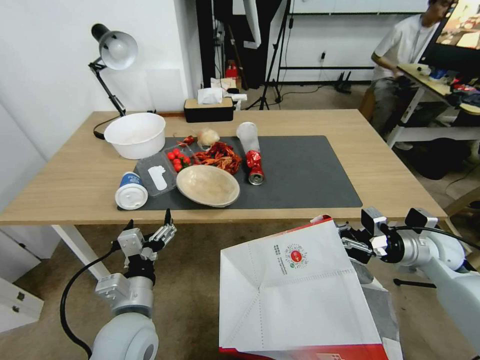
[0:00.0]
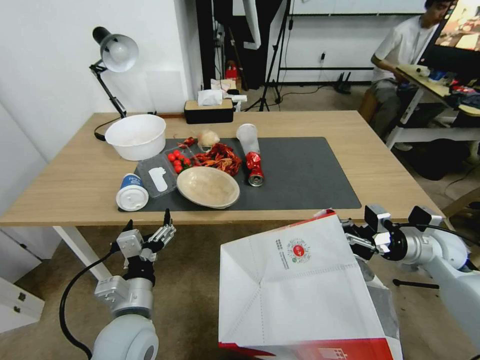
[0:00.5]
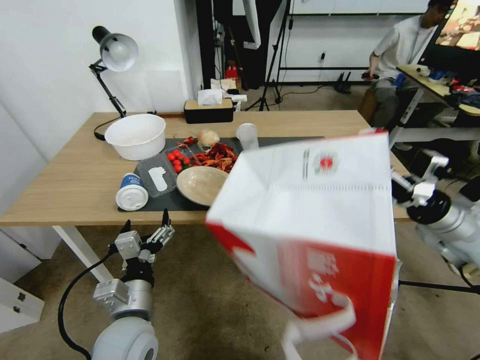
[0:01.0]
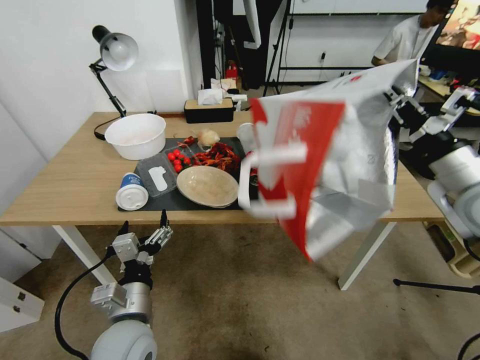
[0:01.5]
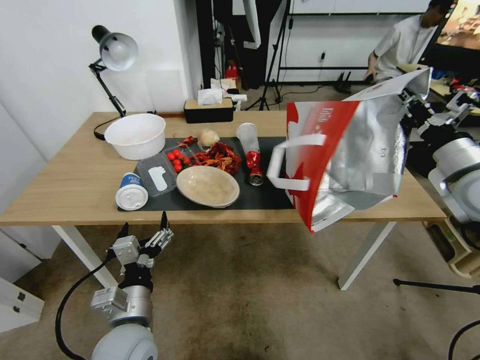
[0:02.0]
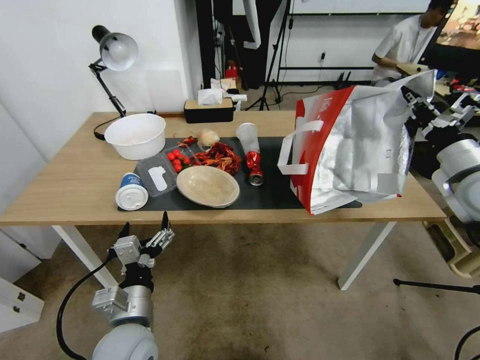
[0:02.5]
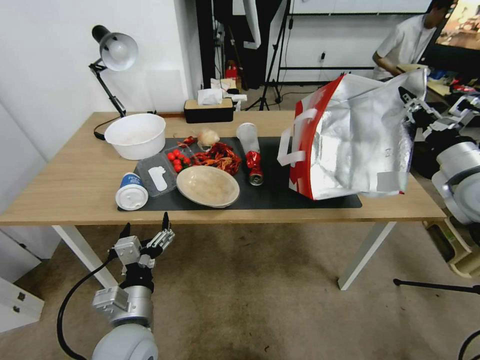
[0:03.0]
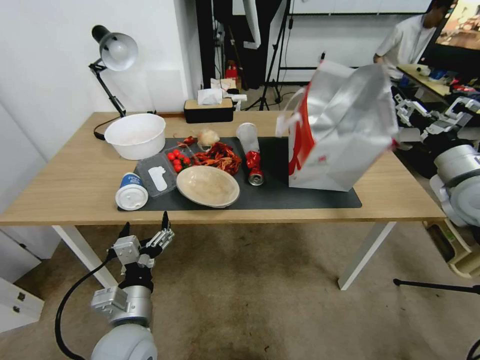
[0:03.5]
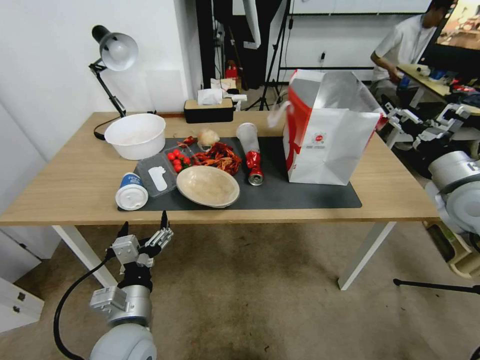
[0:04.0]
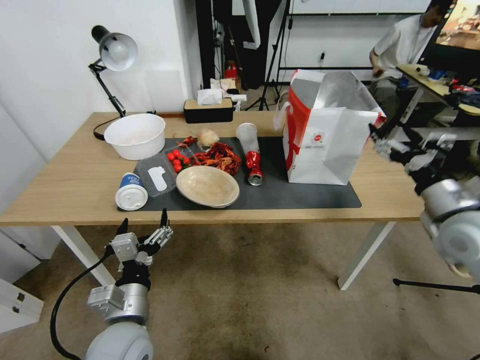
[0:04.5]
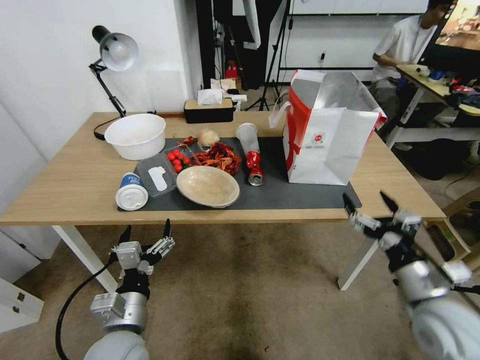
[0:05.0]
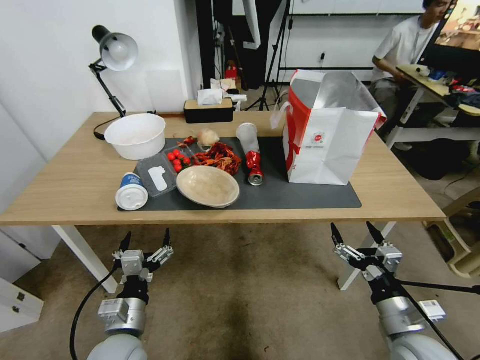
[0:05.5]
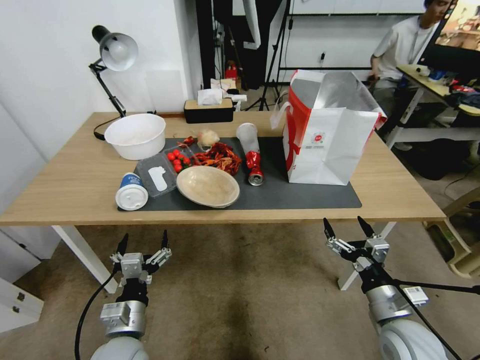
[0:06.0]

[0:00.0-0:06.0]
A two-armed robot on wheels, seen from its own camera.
Task of the whole recording: Pick up the food delivery bag from the floor and place it on the table.
0:00.0 to 0:02.0: The right gripper moves upward, some 15 cm.
0:02.0 to 0:04.0: The right gripper opens up.
0:04.0 to 0:06.0: The right gripper shifts about 30 cm downward, backward and to the left; the left gripper moves downward, about 5 cm.

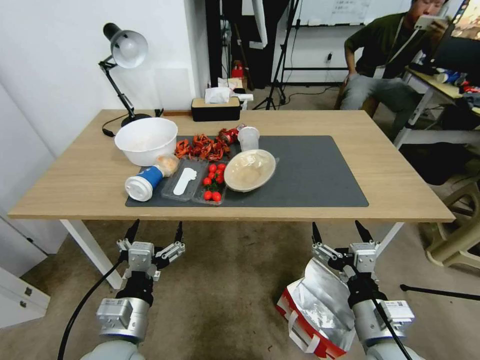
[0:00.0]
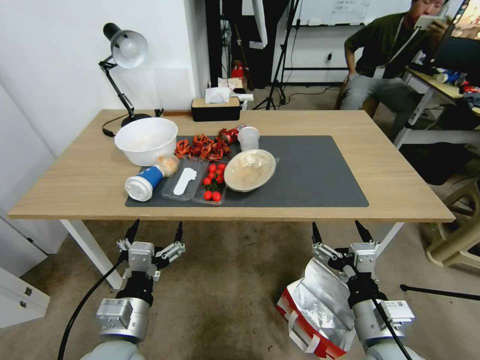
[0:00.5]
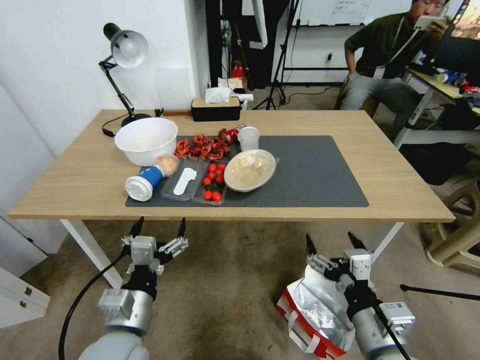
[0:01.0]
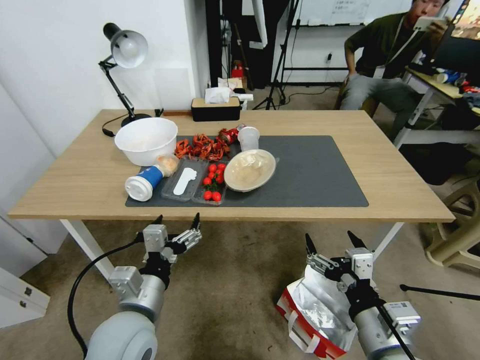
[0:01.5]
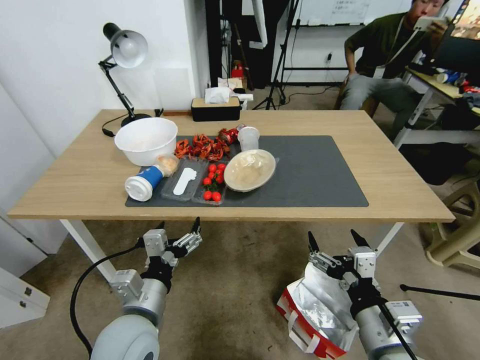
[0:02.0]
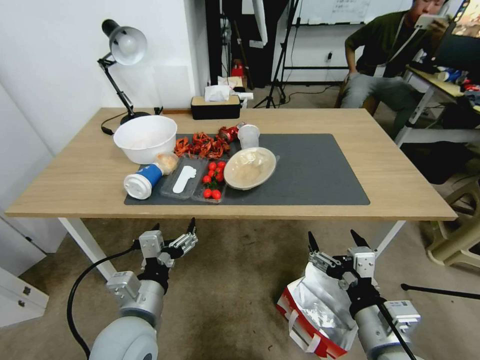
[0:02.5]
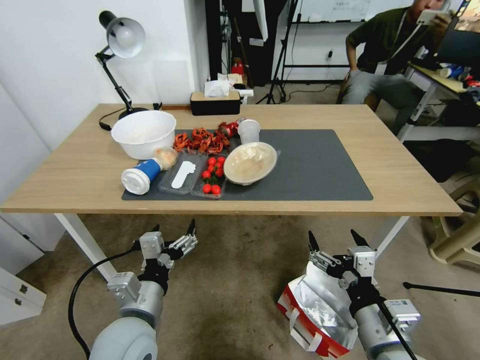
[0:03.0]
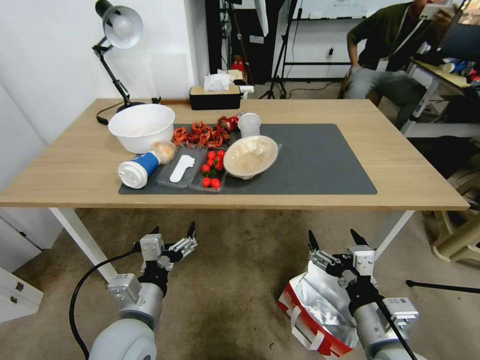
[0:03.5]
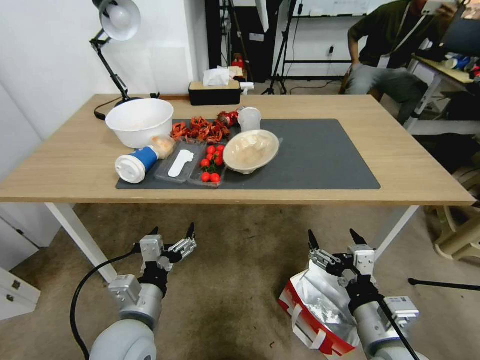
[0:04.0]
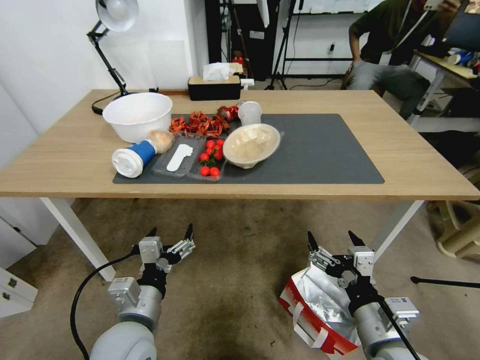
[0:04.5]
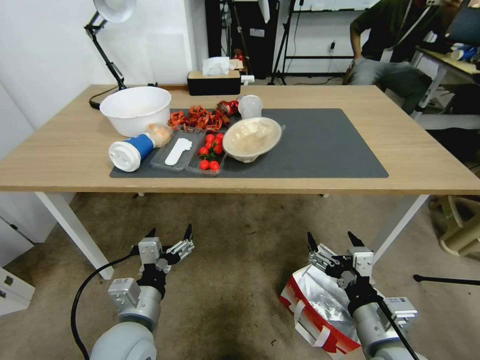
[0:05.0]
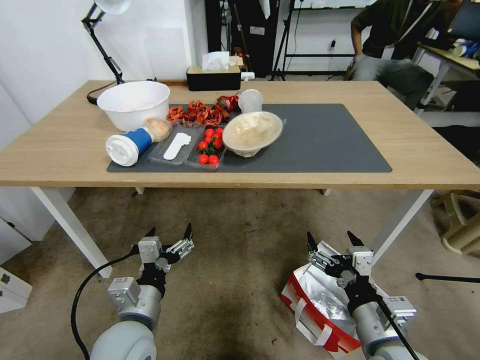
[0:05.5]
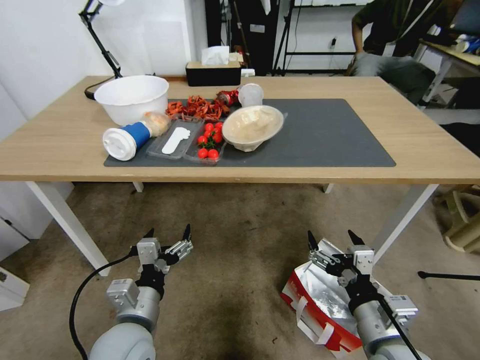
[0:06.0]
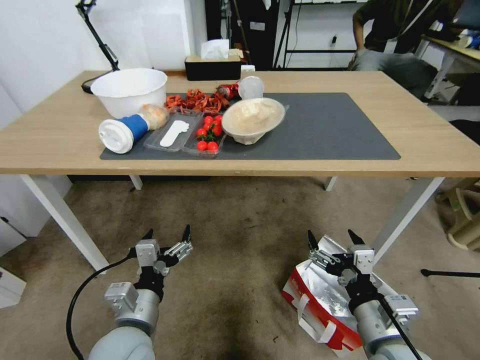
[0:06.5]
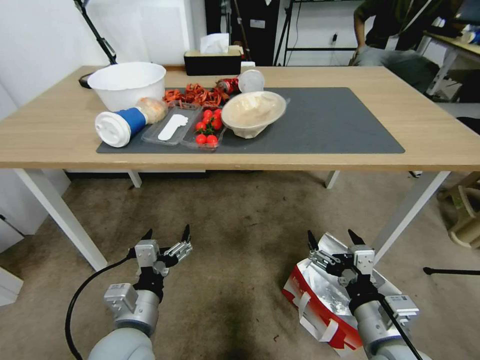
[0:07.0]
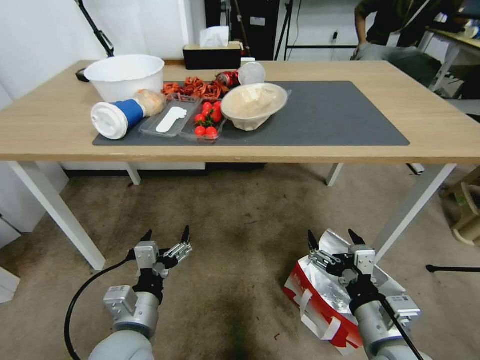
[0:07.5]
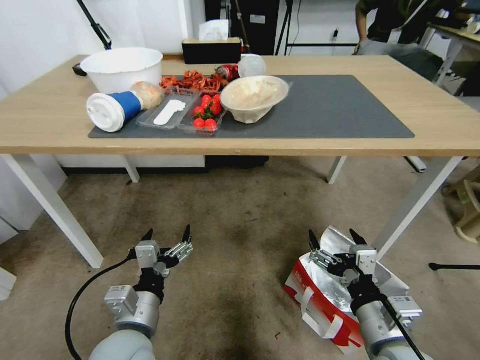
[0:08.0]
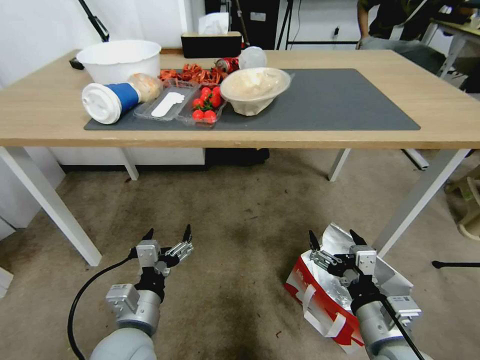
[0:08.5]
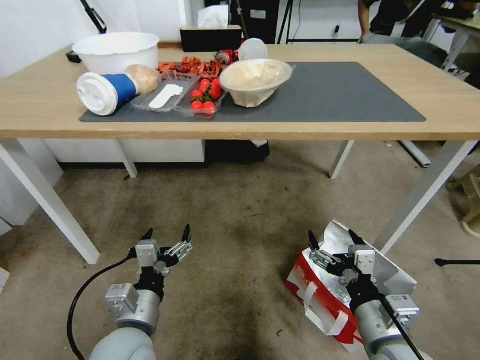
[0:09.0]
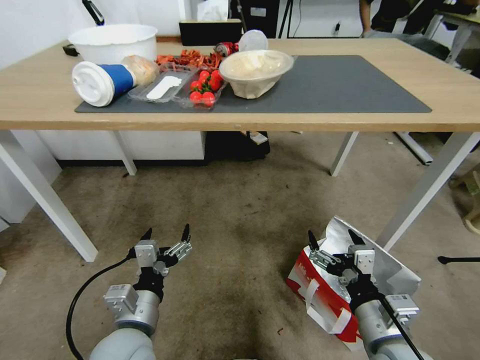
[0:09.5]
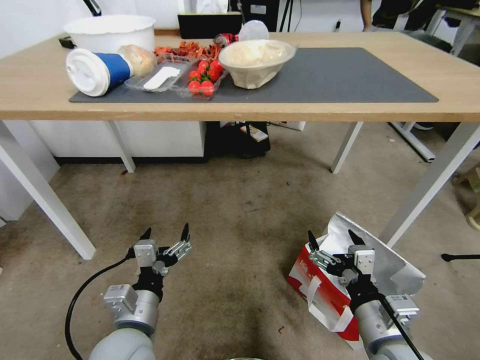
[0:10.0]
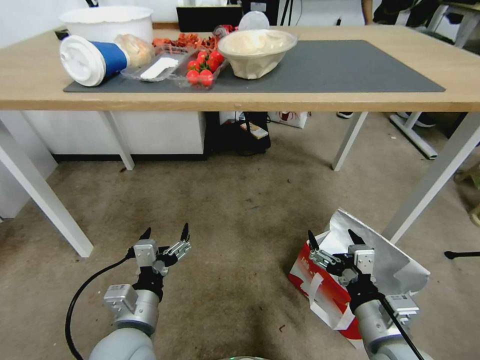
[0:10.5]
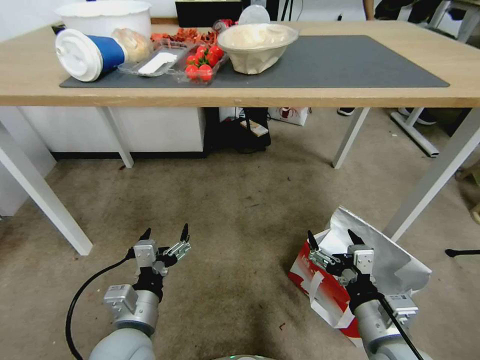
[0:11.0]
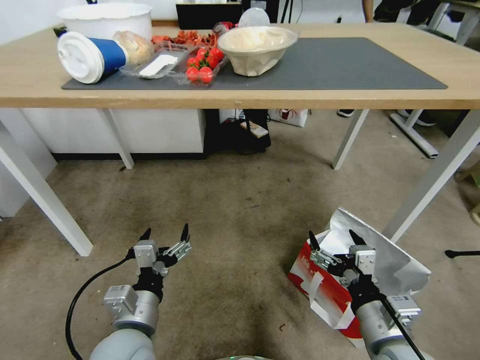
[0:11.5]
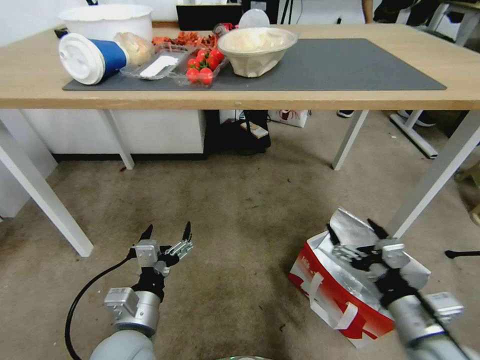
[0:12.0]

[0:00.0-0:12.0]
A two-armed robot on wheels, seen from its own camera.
Task of the whole recording: Pick up the food delivery bag from the floor and place it on the table.
0:10.0 to 0:12.0: The right gripper heads to the right, covering some 5 cm.

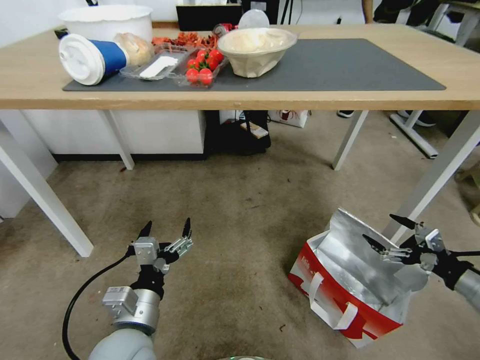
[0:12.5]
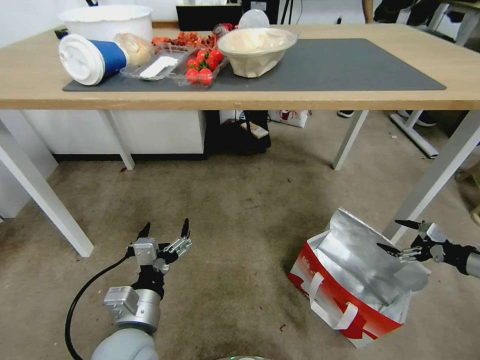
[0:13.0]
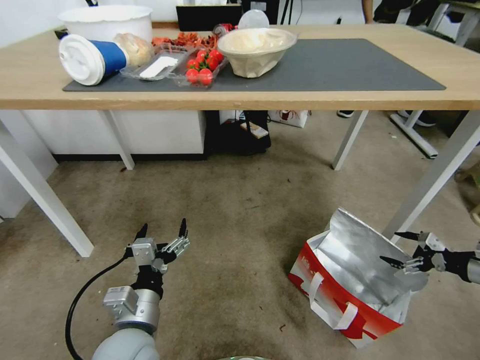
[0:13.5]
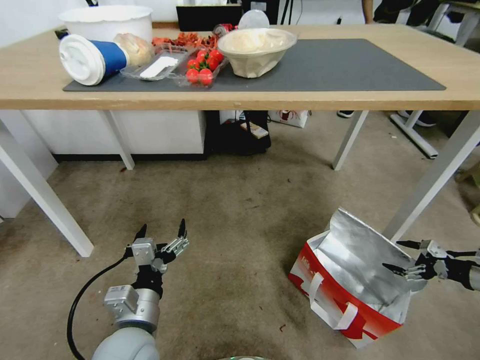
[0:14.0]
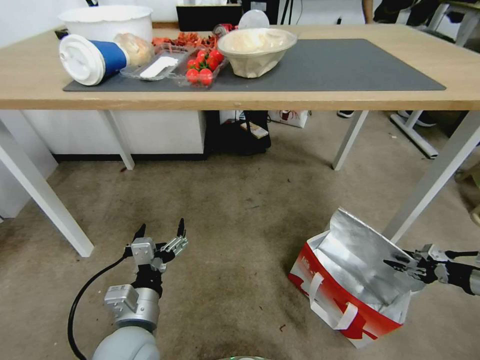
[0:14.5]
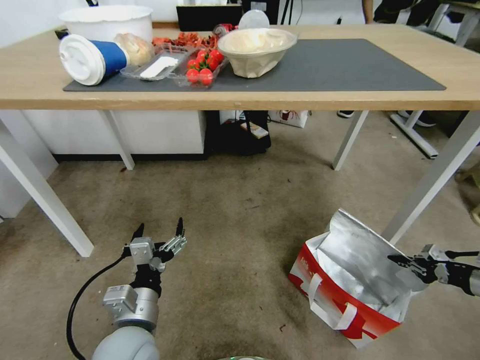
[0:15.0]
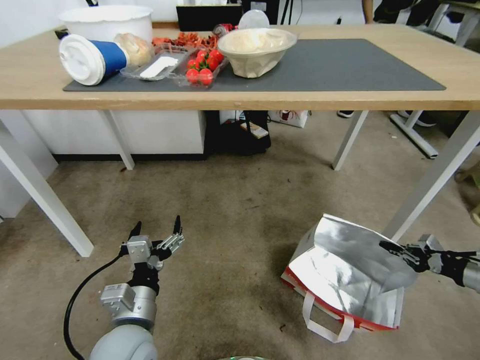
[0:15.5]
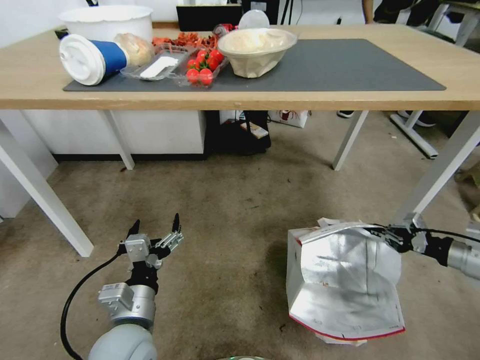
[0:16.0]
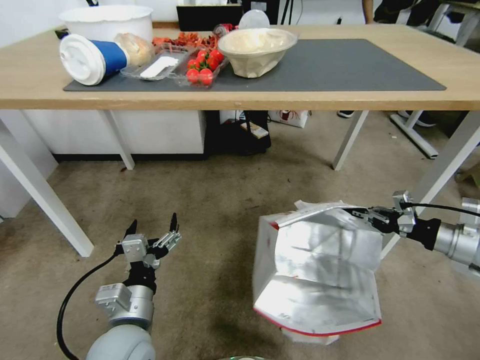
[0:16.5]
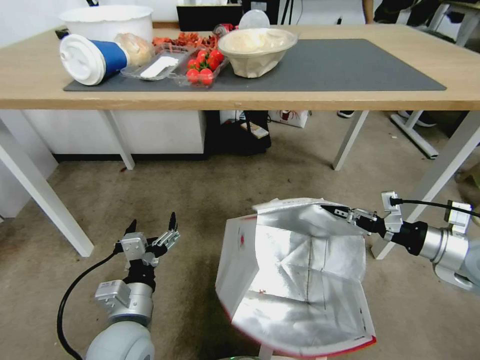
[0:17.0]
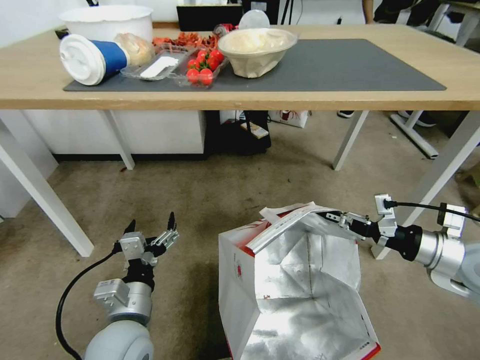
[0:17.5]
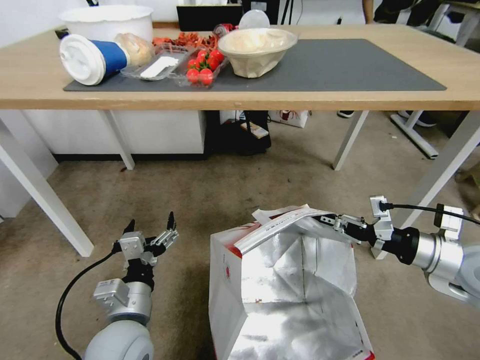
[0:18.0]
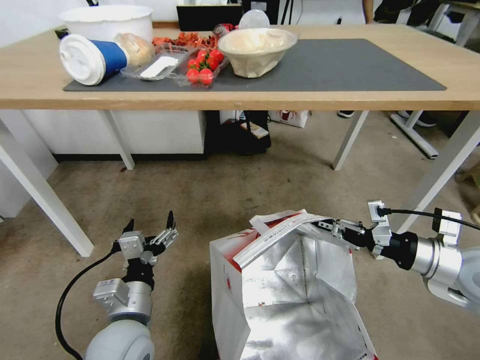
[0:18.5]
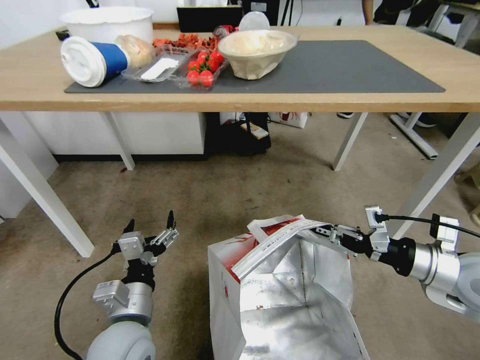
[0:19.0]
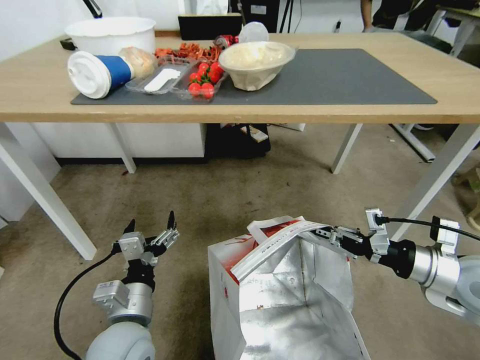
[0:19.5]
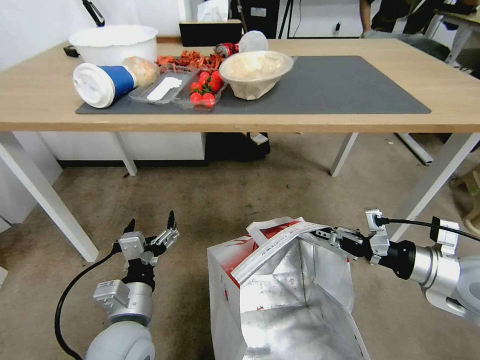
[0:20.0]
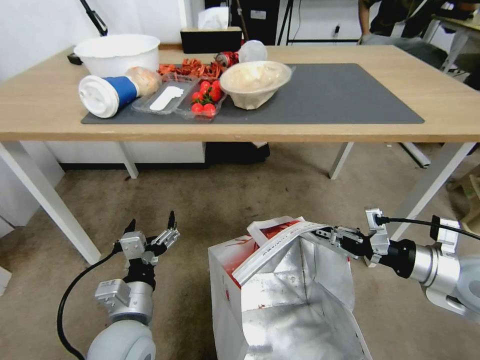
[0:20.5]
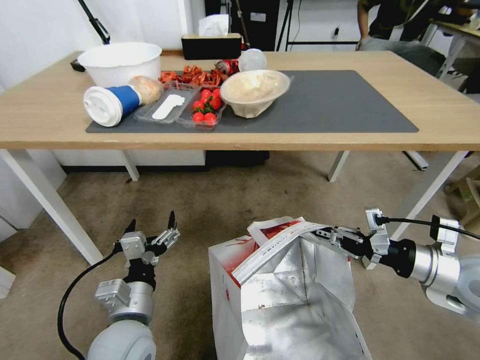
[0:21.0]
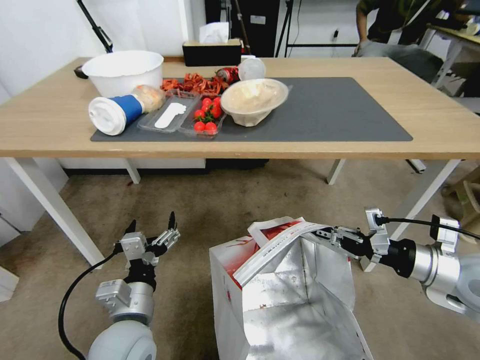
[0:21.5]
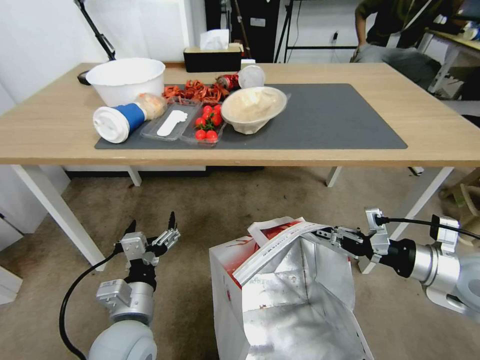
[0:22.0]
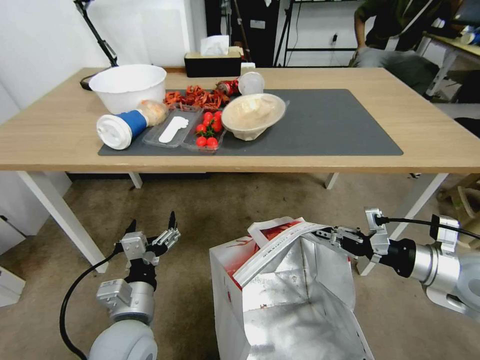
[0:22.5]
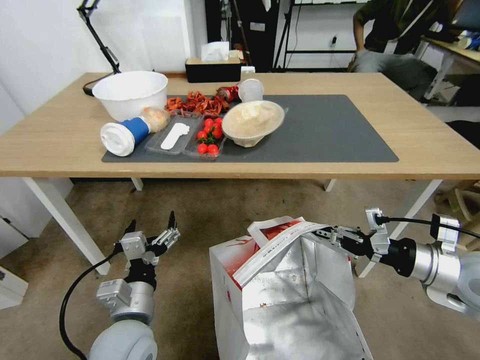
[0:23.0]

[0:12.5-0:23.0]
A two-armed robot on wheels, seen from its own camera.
Task of the whole recording: Pick up the food delivery bag from the floor and place it on the table.
0:12.5 to 0:14.5: The right gripper goes about 15 cm to the right, downward and forward, and closes its fingers.
0:14.5 to 0:16.5: The right gripper moves to the left and upward, approximately 20 cm, and closes its fingers.
0:16.5 to 0:19.0: The right gripper moves to the left, about 10 cm.
